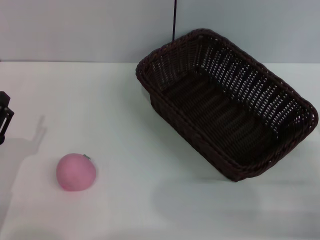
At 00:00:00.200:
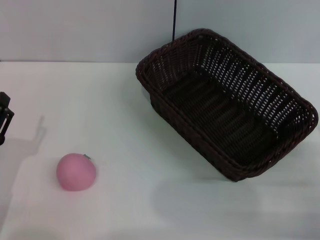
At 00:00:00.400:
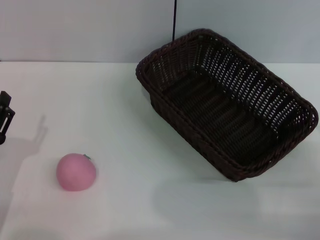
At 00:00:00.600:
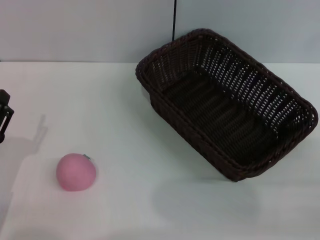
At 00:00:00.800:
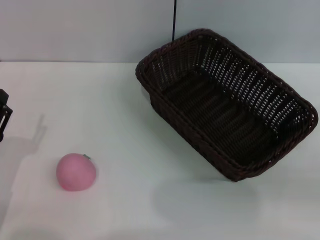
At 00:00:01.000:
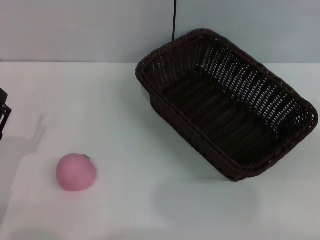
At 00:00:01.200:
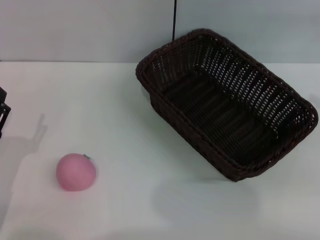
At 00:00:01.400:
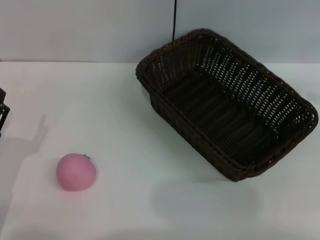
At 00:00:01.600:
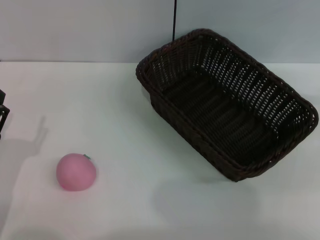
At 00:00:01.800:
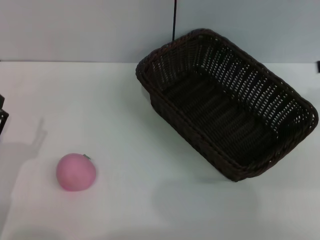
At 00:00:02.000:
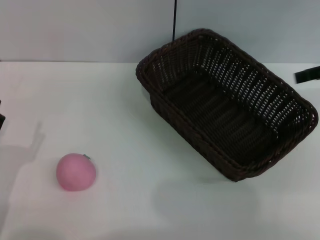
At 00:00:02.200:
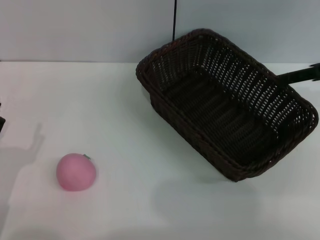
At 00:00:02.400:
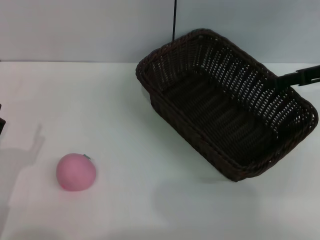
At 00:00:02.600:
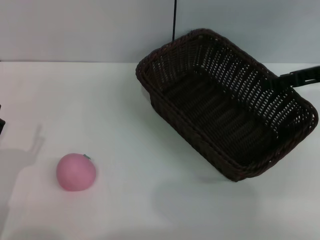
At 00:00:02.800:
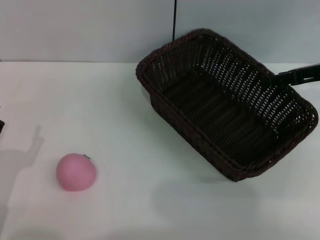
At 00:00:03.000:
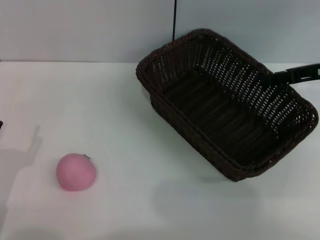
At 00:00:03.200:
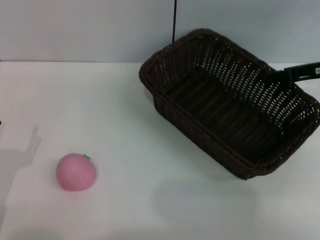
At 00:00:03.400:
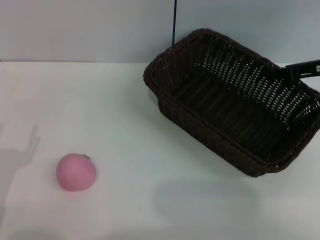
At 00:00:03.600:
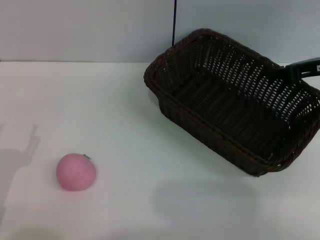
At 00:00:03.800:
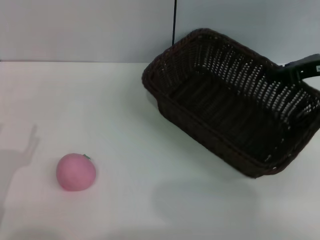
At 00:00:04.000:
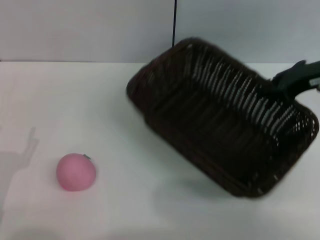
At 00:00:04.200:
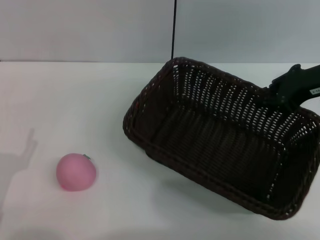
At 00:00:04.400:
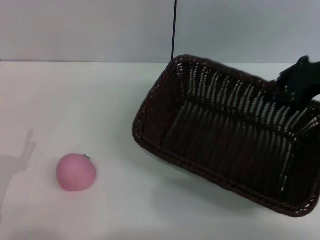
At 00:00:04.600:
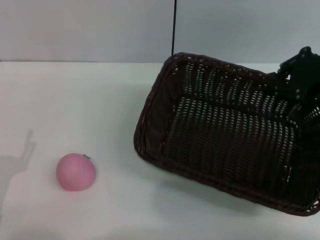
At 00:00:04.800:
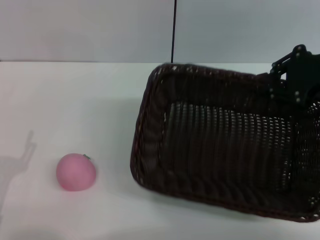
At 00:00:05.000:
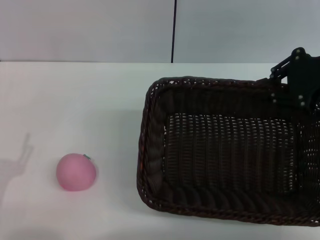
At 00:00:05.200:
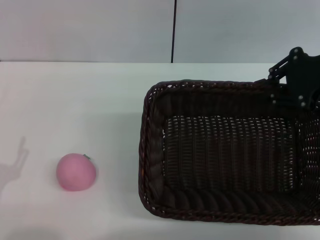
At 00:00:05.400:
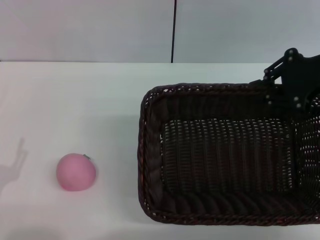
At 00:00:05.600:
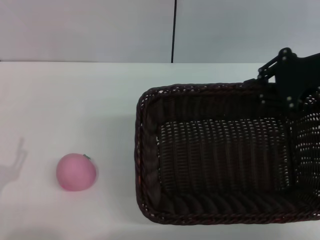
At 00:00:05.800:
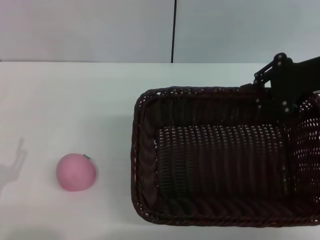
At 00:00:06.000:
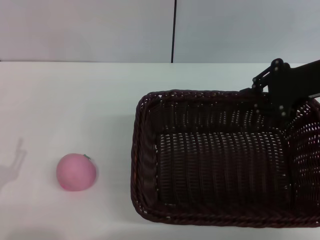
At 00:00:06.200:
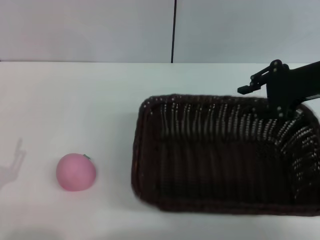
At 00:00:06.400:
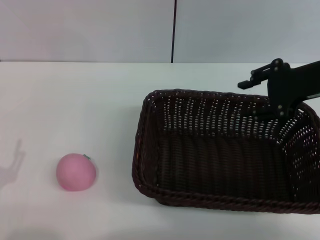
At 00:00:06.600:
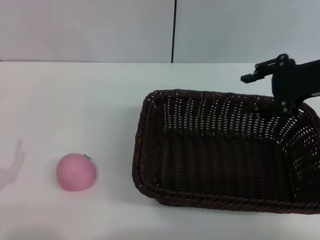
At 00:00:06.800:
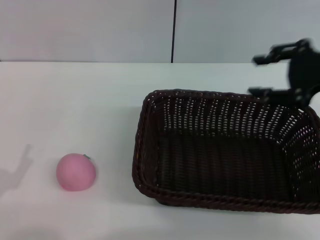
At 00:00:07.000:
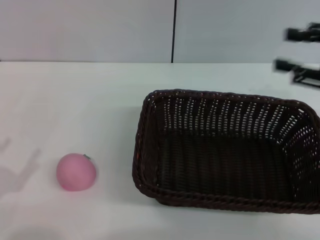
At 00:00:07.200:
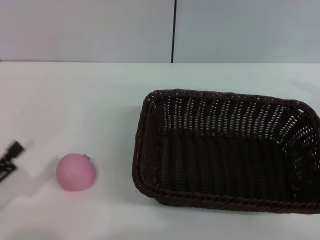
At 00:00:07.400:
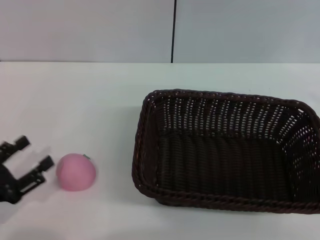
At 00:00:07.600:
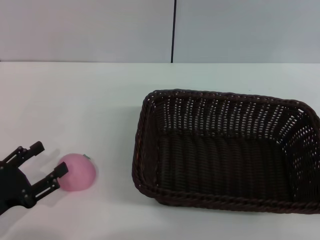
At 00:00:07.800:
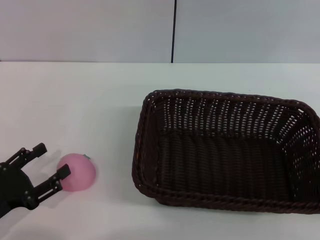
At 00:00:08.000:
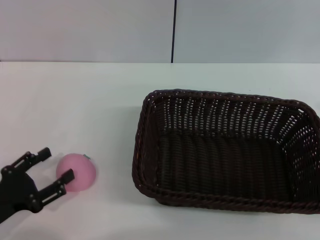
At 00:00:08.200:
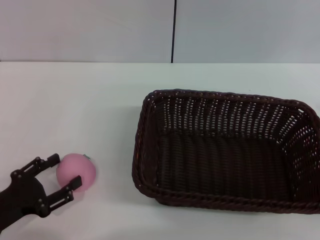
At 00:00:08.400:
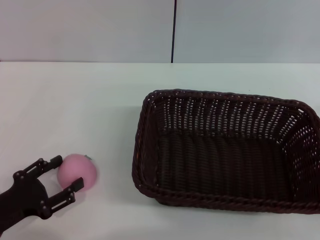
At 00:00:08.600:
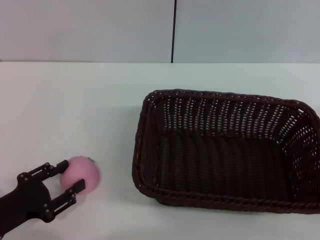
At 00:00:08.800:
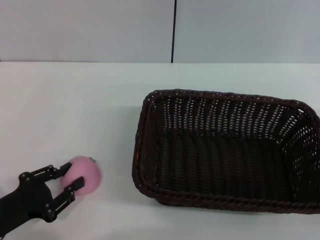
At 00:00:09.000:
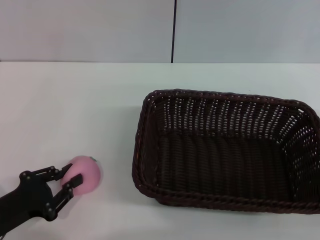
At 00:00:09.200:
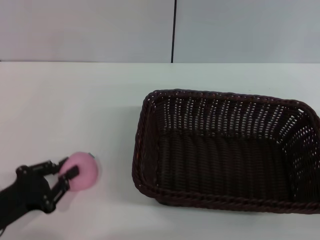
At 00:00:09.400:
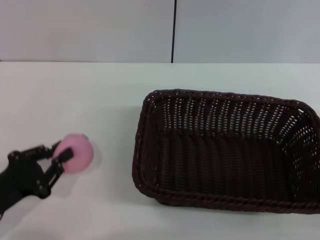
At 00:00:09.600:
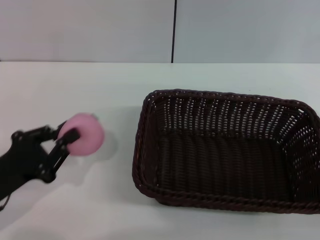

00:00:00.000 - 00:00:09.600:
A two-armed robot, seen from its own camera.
Step, 00:00:00.000 - 00:00:04.000: Pick up the dark basket with the right gripper.
Step, 00:00:04.400 - 00:00:06.400: Place the dark basket in the center of view with the right gripper.
Step, 00:00:06.800 - 00:00:09.400: Pick up the peach with the left gripper.
00:00:00.000 - 00:00:01.600: The right gripper is displaced upward and forward by approximately 30 cm.
00:00:01.600 - 00:00:03.200: The right gripper heads downward and to the left, covering roughly 15 cm, and closes its fingers.
00:00:03.200 - 00:00:04.800: The right gripper is displaced upward by approximately 5 cm, and closes.
00:00:04.800 - 00:00:06.400: The grippers make only small movements.
00:00:06.400 - 00:00:08.000: The right gripper goes about 20 cm backward, to the right and downward, and opens its fingers.
00:00:08.000 - 00:00:09.600: The left gripper closes up.

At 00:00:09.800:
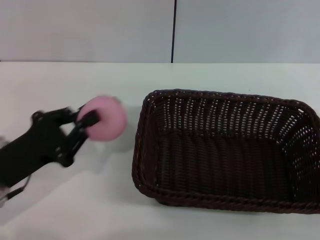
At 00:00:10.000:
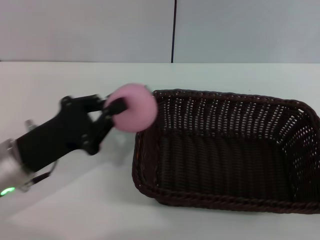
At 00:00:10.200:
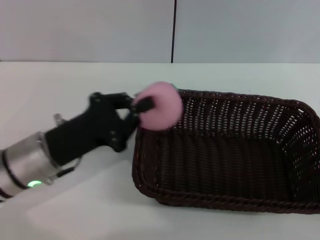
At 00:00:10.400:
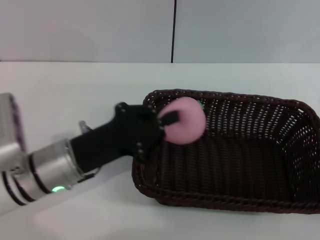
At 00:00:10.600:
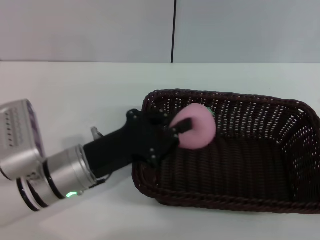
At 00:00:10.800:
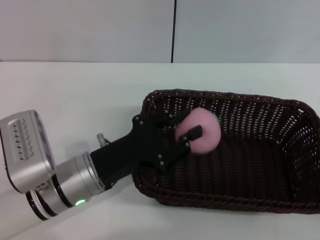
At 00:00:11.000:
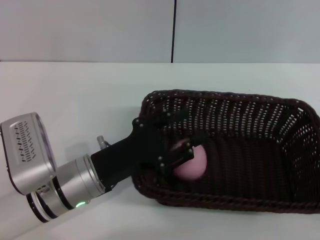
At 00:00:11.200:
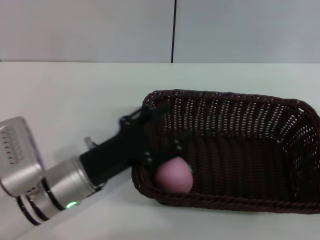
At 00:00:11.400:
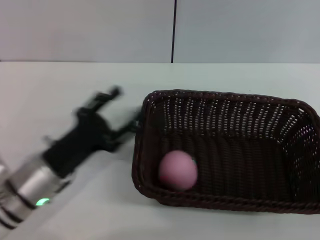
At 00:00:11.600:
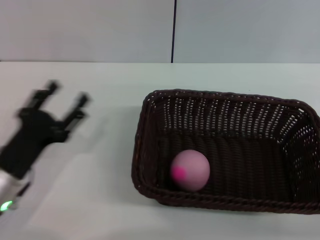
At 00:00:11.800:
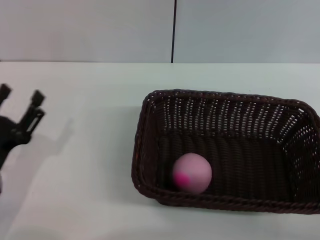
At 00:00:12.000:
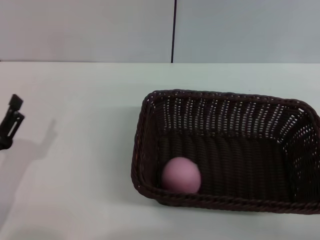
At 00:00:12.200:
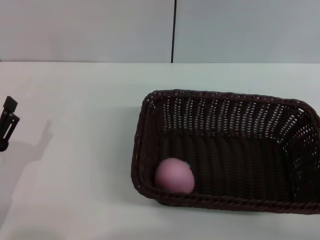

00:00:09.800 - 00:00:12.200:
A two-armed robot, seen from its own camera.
Step, 00:00:09.800 - 00:00:11.200: Place the peach into the basket with the left gripper.
00:00:09.800 - 00:00:11.000: The left gripper shifts about 10 cm to the right.
00:00:11.000 - 00:00:12.200: The left gripper is displaced to the left and backward by about 15 cm, and opens up.
